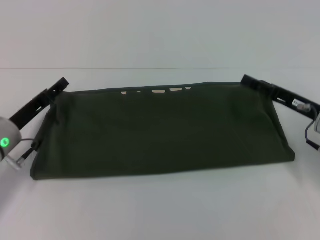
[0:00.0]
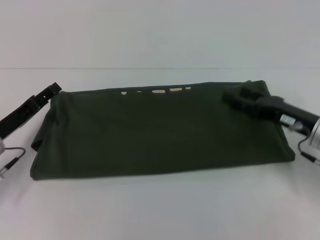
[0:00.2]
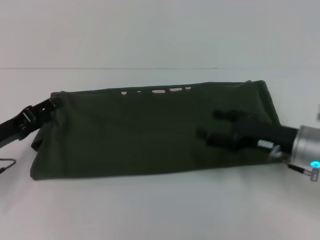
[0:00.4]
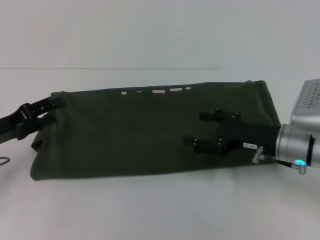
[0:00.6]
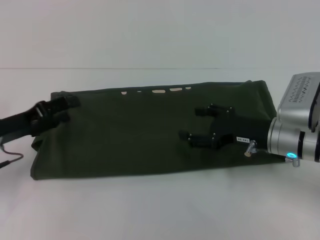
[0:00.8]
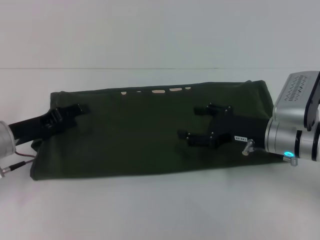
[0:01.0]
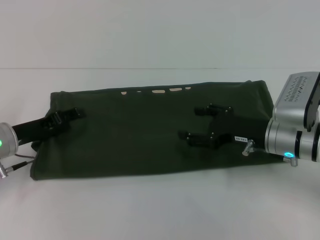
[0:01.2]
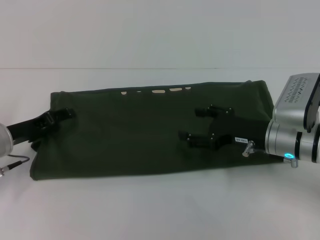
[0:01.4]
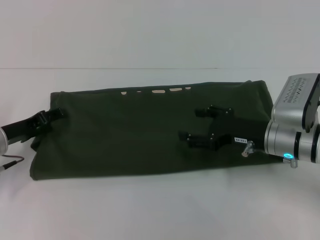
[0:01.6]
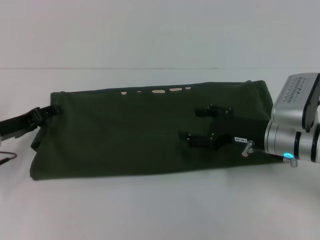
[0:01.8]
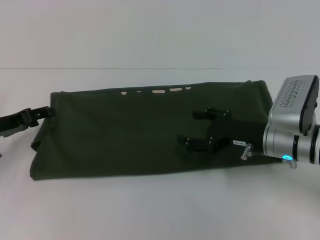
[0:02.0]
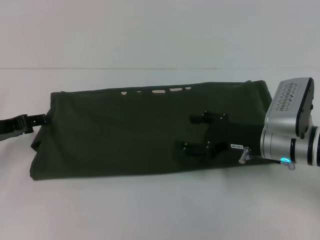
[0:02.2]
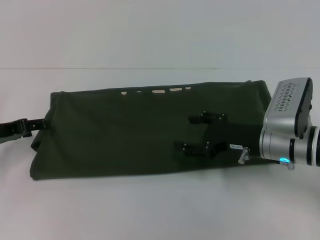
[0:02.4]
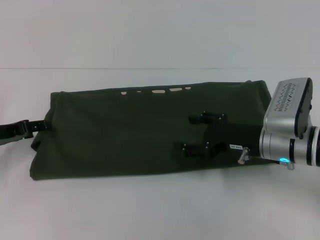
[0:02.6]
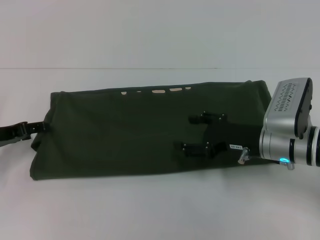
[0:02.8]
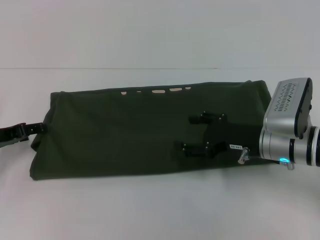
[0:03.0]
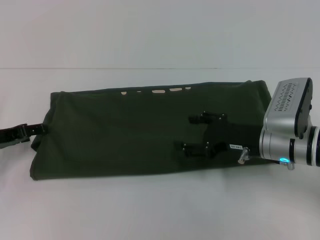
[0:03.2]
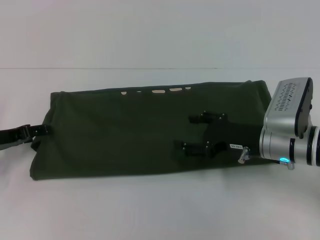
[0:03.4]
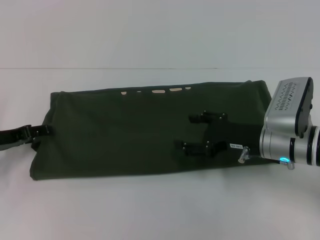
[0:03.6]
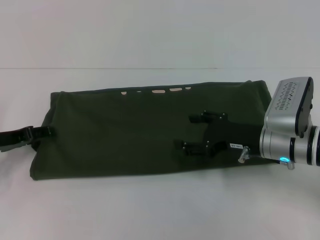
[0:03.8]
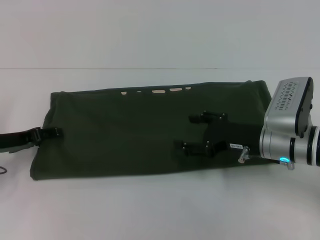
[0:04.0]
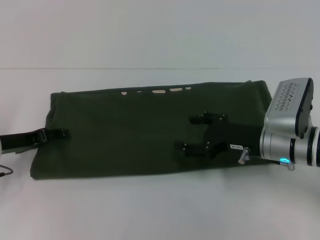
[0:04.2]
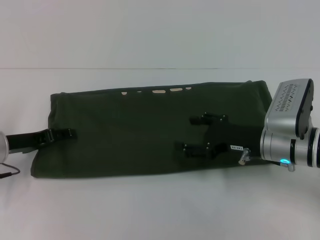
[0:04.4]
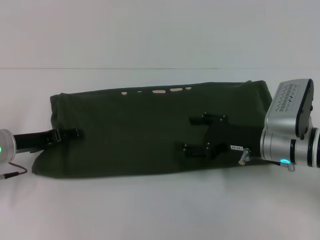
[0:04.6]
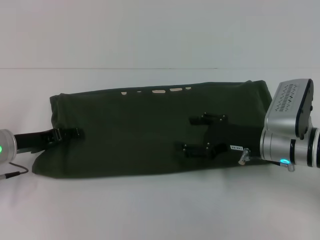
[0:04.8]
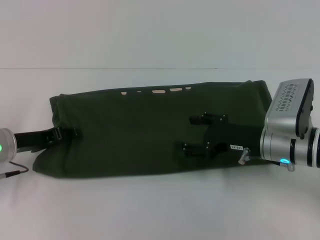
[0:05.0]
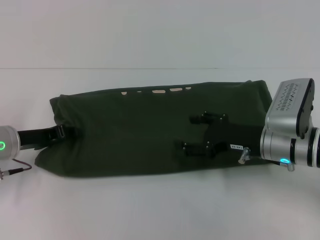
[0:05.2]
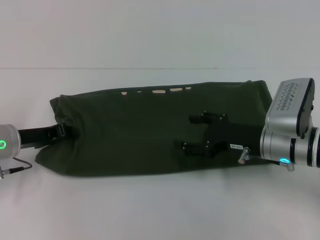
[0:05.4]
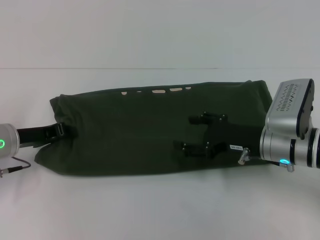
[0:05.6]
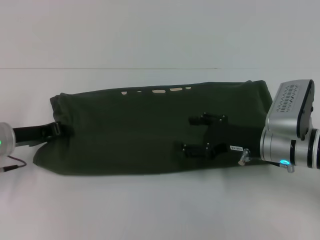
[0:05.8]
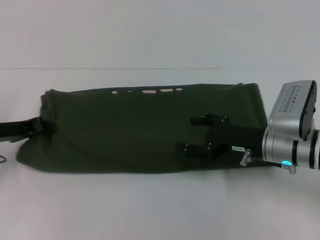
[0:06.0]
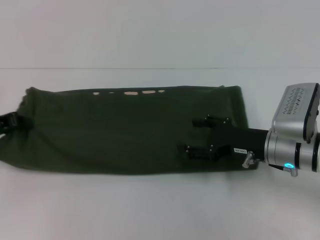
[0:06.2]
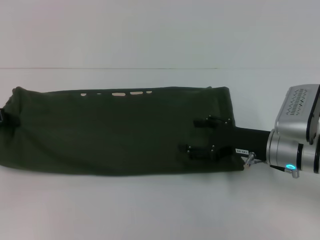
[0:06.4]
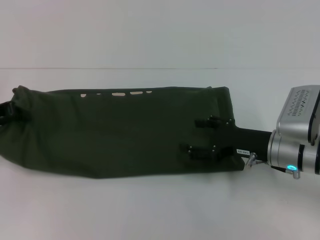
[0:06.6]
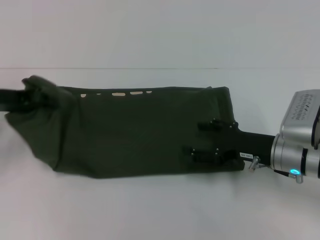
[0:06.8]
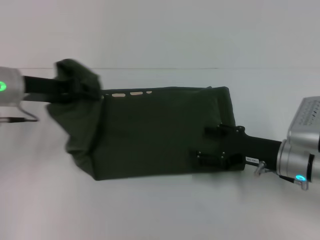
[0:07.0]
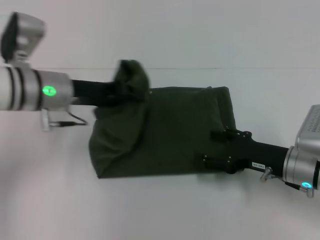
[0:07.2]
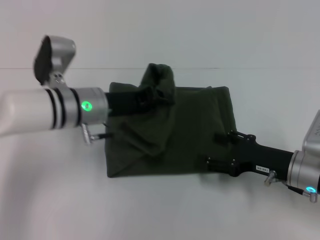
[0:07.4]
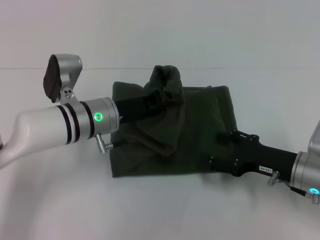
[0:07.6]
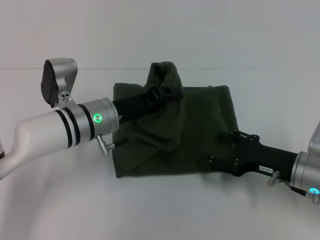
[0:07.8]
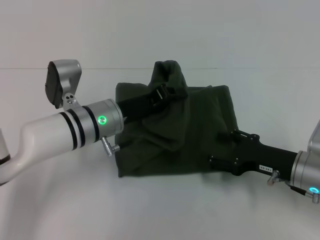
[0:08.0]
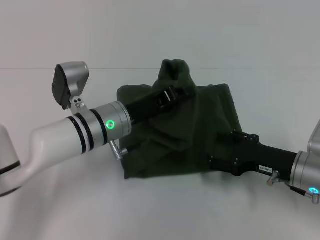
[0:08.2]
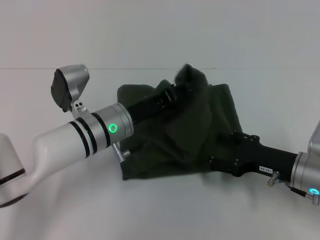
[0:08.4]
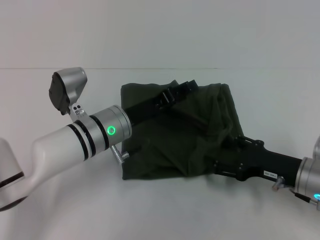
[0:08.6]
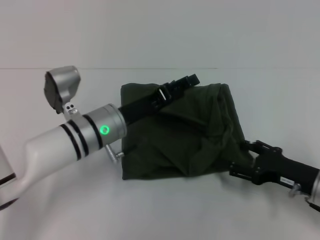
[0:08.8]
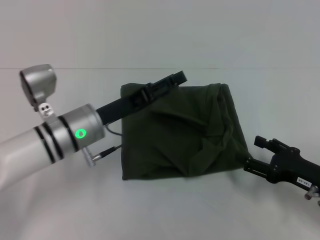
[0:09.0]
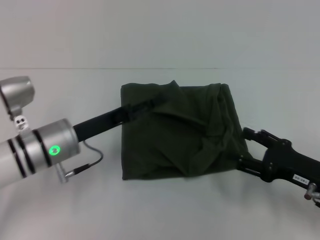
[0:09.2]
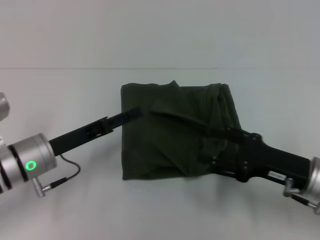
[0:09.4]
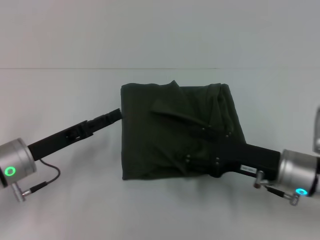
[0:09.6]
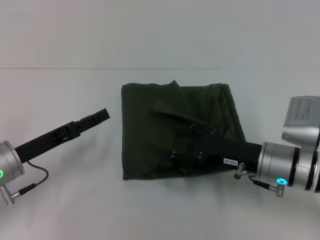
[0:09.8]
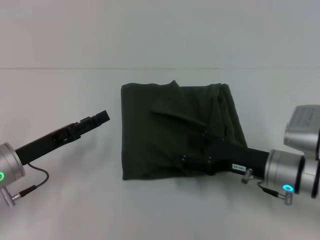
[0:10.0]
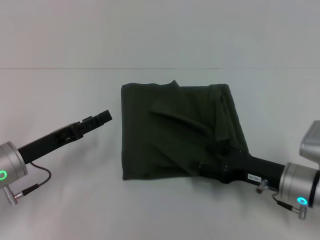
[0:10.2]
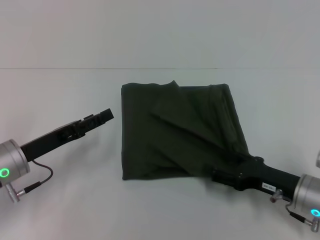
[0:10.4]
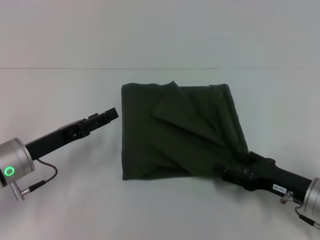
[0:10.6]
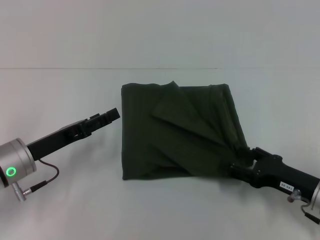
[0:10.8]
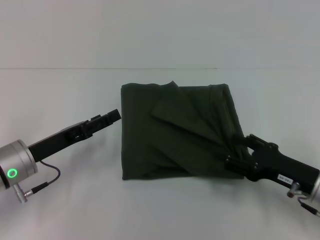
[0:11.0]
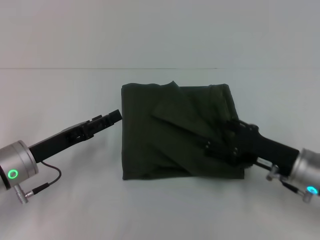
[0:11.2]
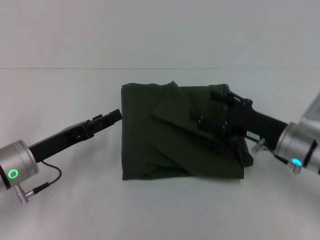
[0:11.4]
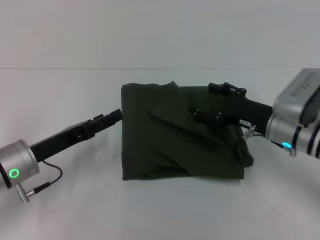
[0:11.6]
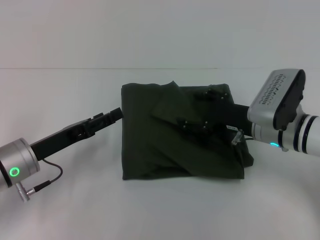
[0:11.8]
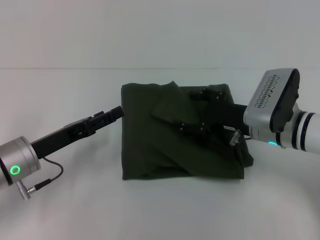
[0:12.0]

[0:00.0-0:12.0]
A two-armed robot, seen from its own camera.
Step, 0:00.0 to 0:08.8: Fold the clothes with your left hand.
0:00.0 to 0:01.6: The right gripper travels to the left by about 5 cm.
0:01.6 to 0:04.4: The grippers move only a little.
0:04.4 to 0:06.0: The left gripper closes.
0:06.0 to 0:07.6: The right gripper shifts by roughly 5 cm, while the left gripper shifts some 20 cm to the right.
0:07.6 to 0:09.0: The right gripper shifts by roughly 5 cm. The left gripper opens up.
0:09.0 to 0:10.4: The left gripper heads to the left, covering about 10 cm.
0:10.4 to 0:12.0: The right gripper shifts about 15 cm forward, upward and to the left.

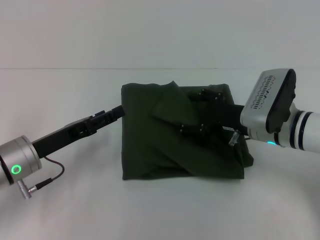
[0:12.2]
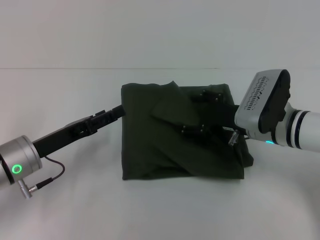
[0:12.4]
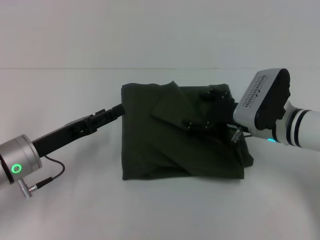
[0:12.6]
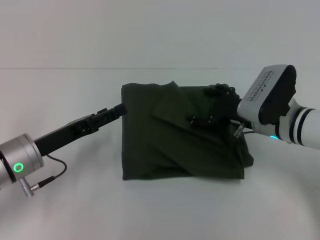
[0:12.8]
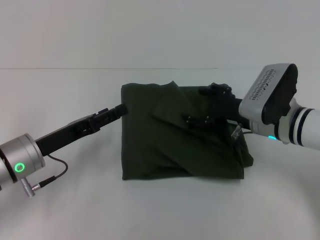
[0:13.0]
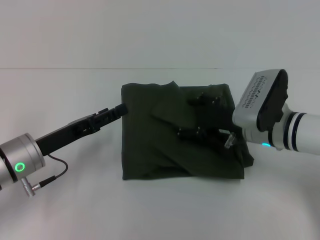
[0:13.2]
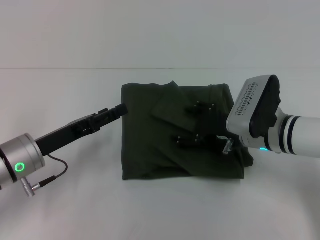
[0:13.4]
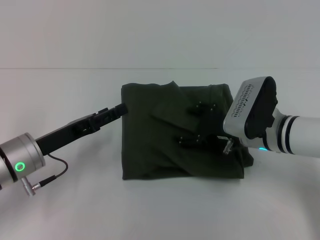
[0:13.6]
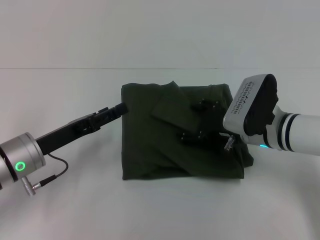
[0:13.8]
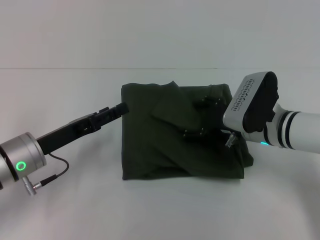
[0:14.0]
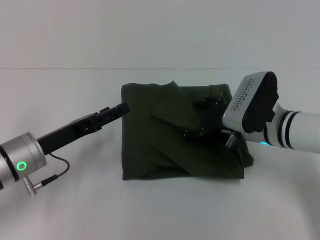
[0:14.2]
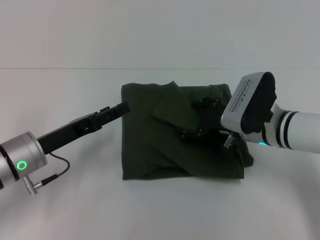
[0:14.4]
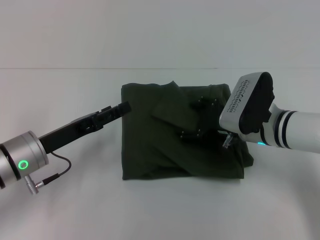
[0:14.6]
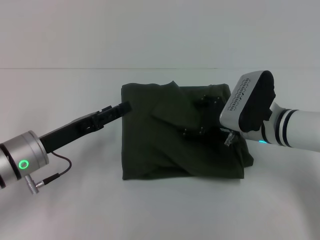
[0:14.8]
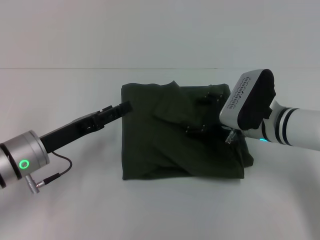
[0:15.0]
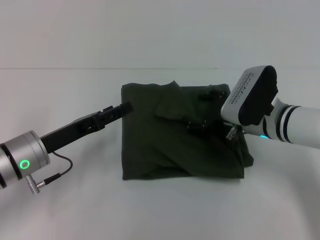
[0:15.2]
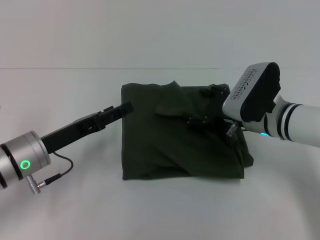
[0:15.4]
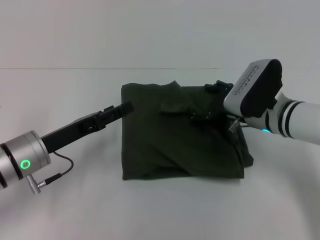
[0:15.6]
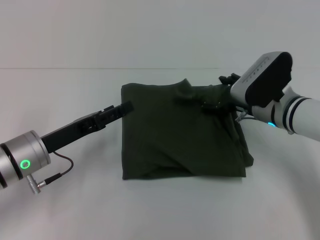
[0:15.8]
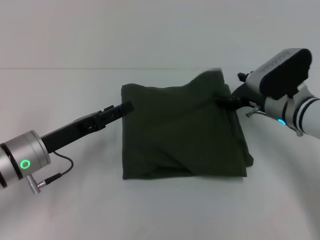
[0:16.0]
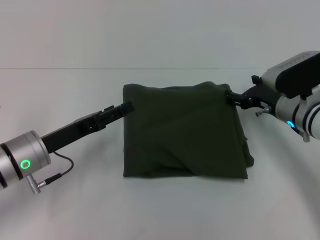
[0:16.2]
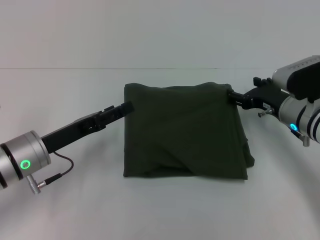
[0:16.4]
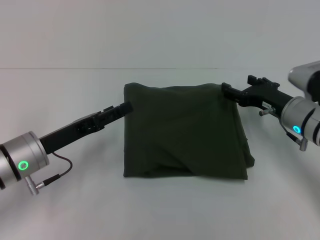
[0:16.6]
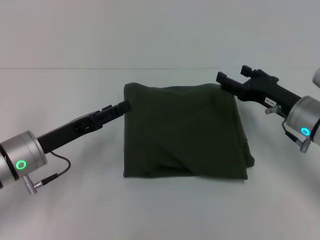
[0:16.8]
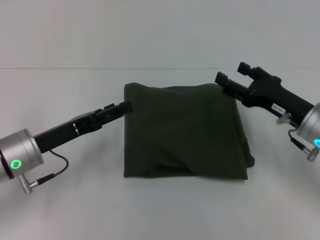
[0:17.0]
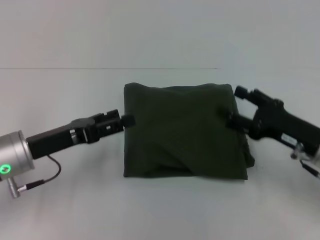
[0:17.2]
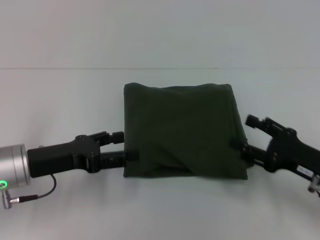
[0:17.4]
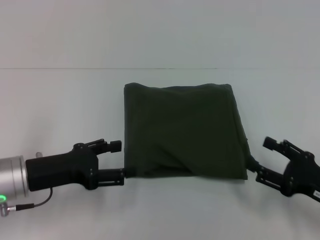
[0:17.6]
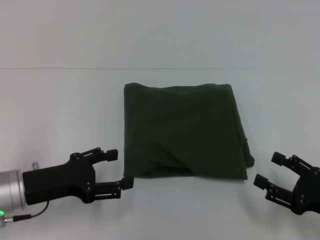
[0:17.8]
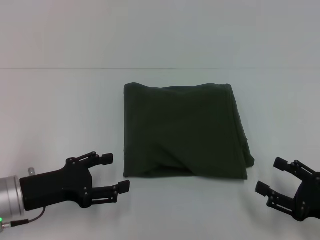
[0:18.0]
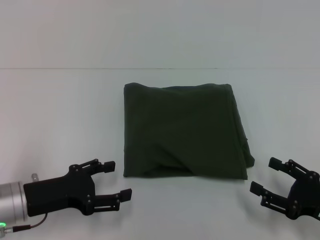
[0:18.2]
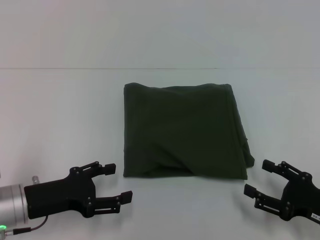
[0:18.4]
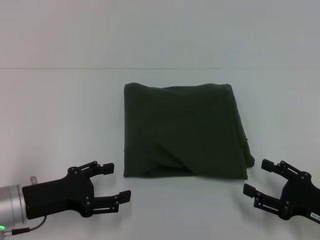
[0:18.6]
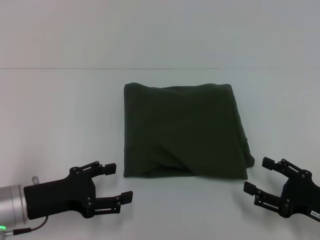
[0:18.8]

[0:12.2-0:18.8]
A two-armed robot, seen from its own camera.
0:12.2 to 0:15.4: The grippers stay close to where they were, moving slightly.
0:15.4 to 0:17.2: The right gripper goes roughly 10 cm backward and to the right.
0:17.2 to 0:18.8: The left gripper shifts roughly 5 cm backward; the right gripper goes approximately 10 cm backward and downward.
